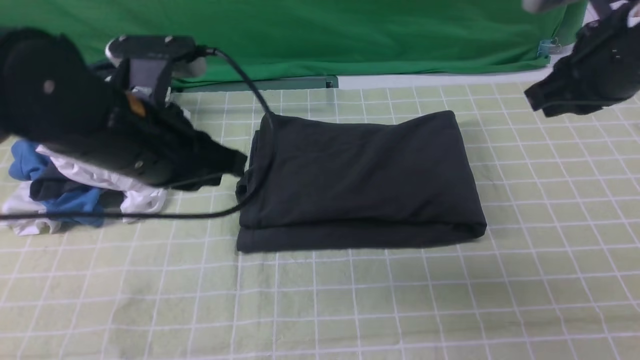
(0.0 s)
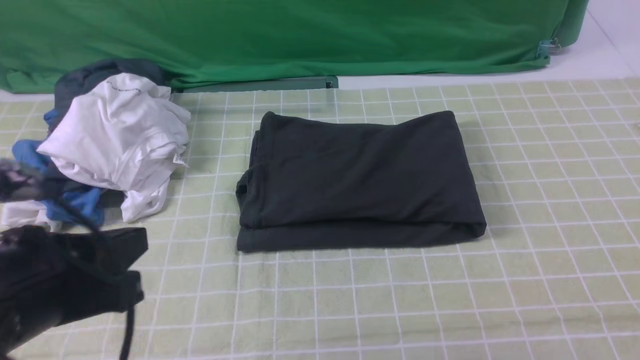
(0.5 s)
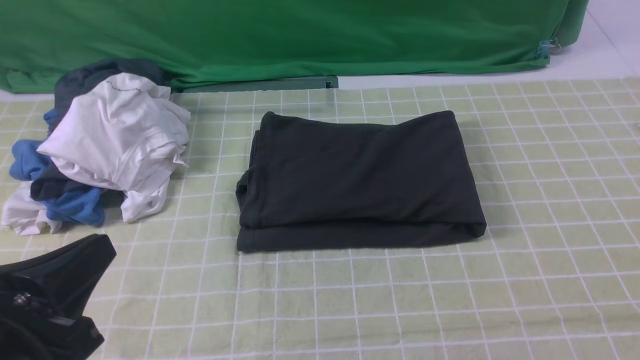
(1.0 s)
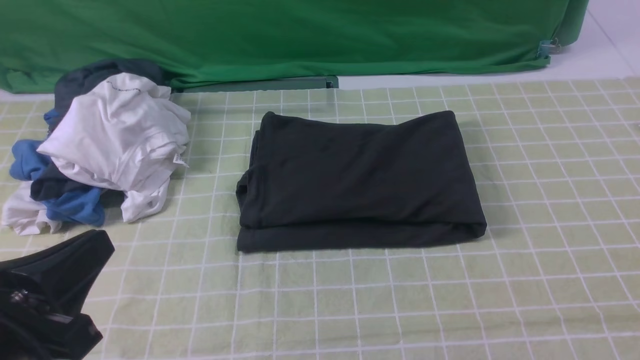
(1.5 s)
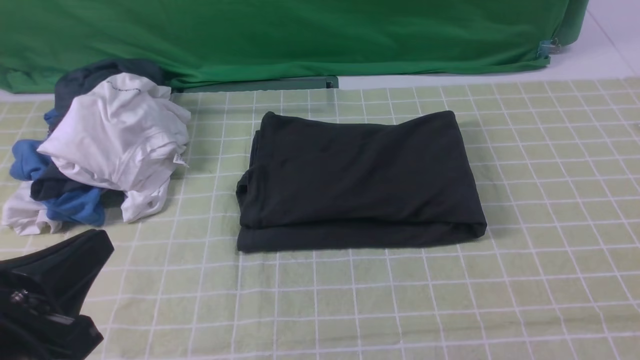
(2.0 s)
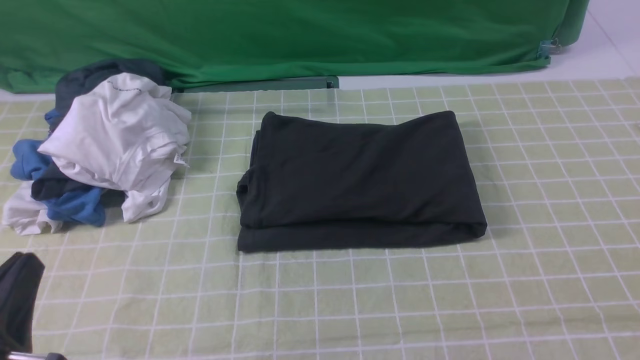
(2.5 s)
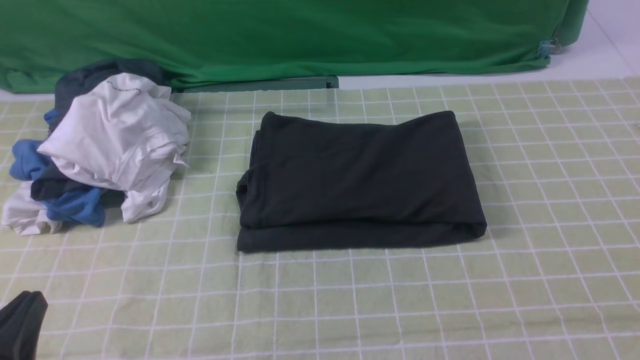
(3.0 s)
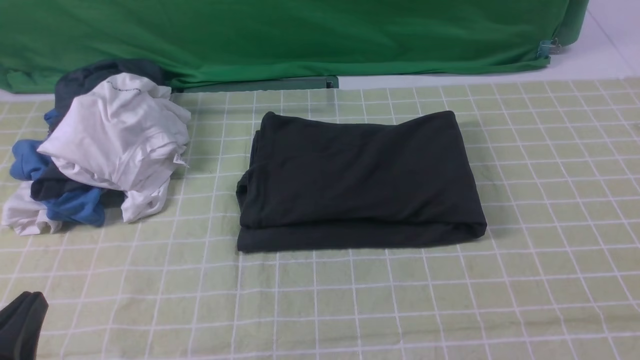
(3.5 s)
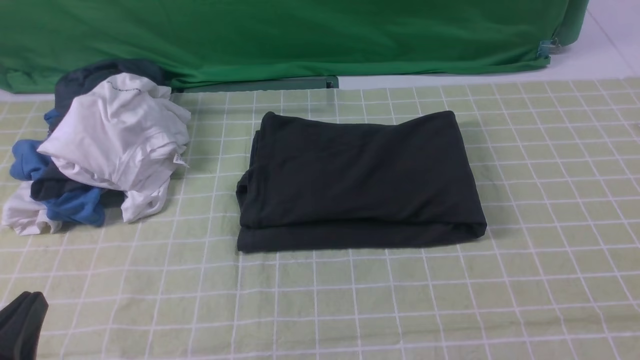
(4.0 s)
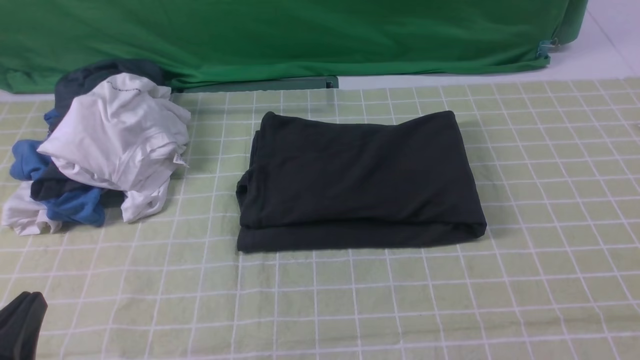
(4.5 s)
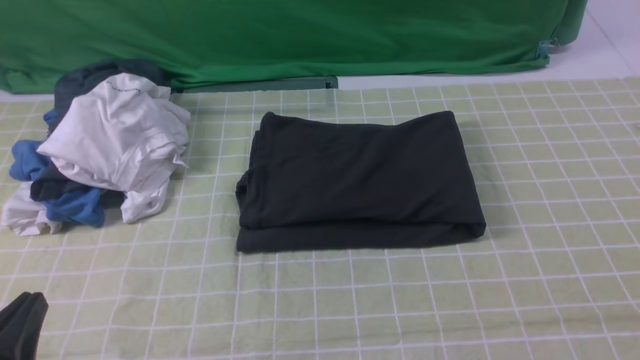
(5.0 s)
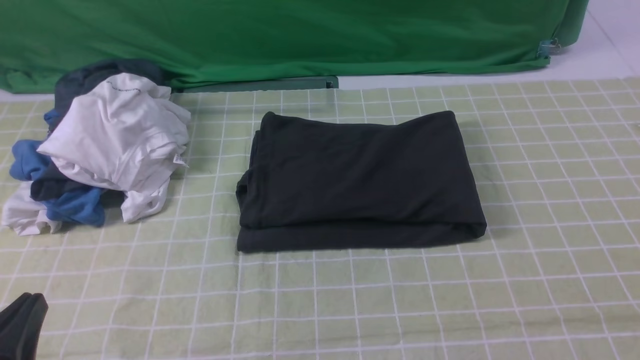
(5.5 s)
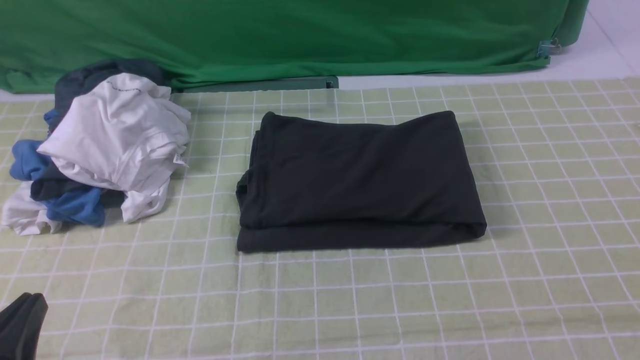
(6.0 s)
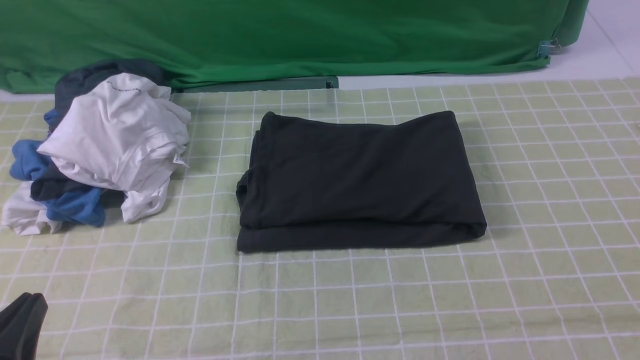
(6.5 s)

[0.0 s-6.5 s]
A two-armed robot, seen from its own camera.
0.0 to 2.0 s: Both grippers travel together backward, roughly 25 cm.
2.0 to 4.5 s: The left gripper is displaced downward by some 5 cm.
